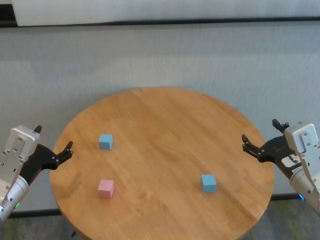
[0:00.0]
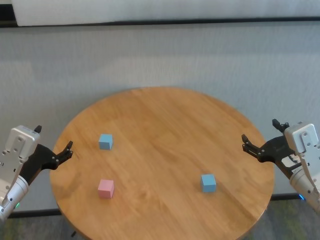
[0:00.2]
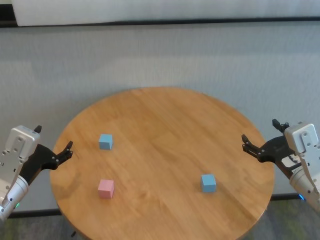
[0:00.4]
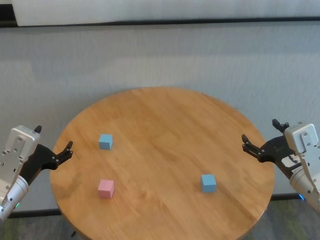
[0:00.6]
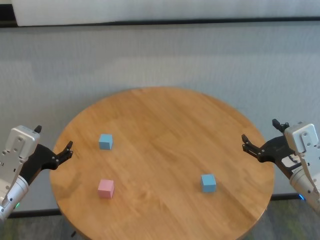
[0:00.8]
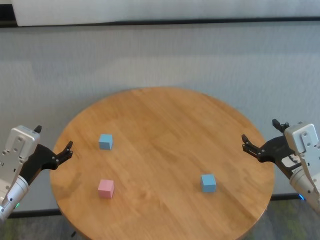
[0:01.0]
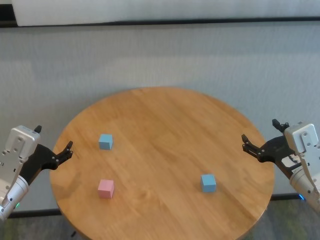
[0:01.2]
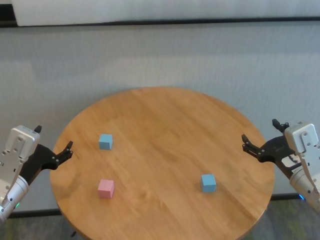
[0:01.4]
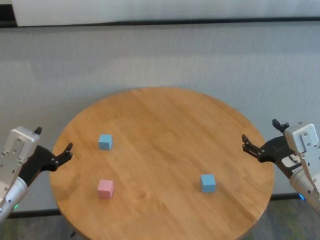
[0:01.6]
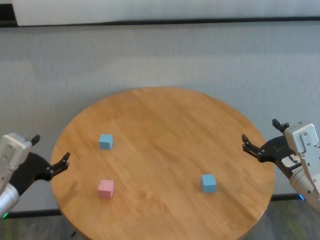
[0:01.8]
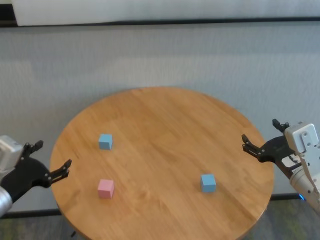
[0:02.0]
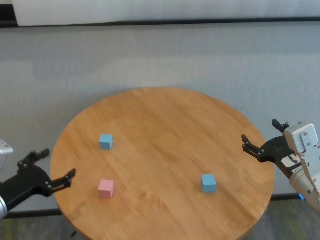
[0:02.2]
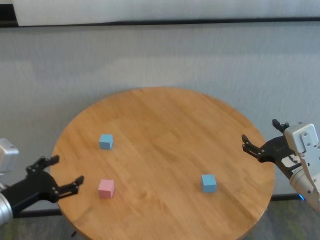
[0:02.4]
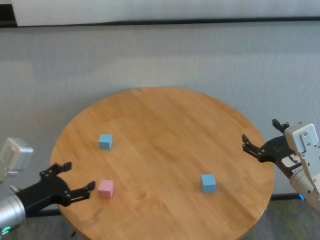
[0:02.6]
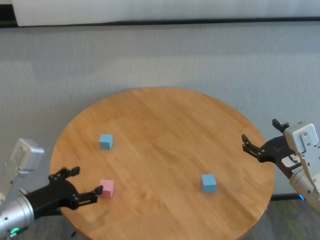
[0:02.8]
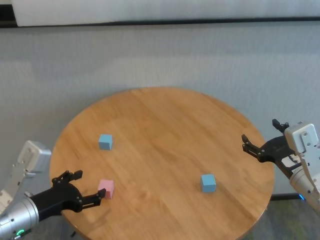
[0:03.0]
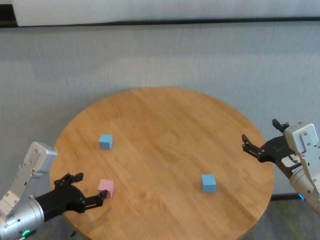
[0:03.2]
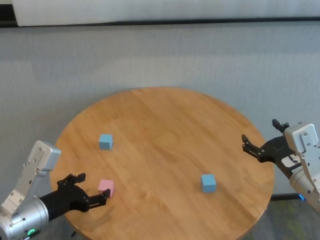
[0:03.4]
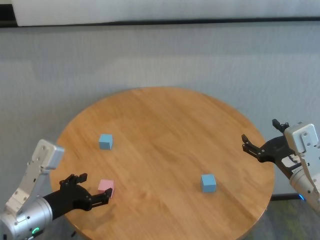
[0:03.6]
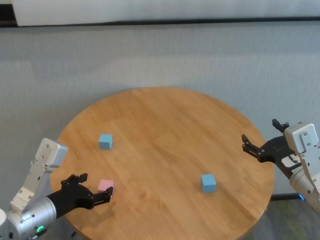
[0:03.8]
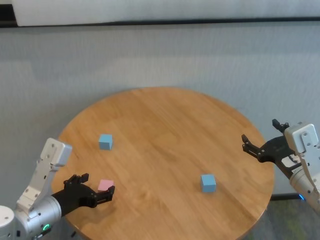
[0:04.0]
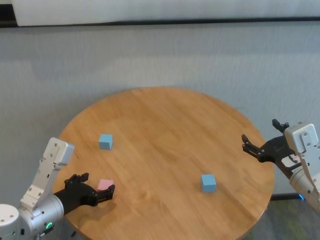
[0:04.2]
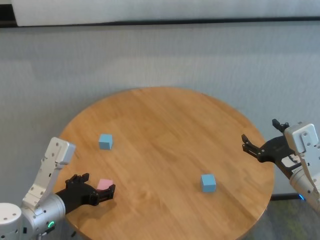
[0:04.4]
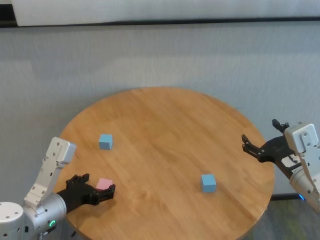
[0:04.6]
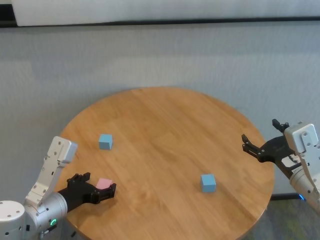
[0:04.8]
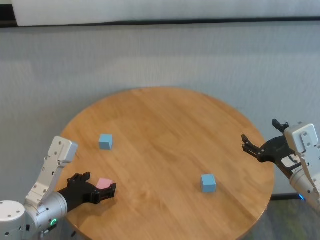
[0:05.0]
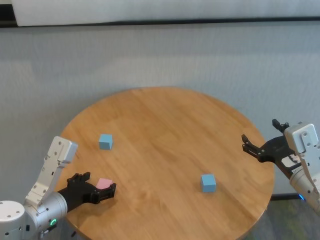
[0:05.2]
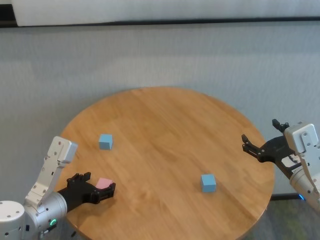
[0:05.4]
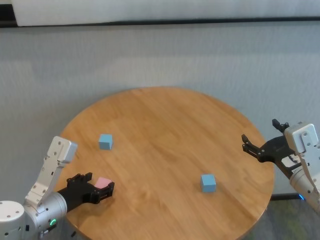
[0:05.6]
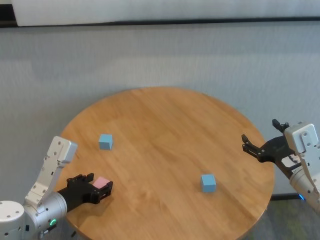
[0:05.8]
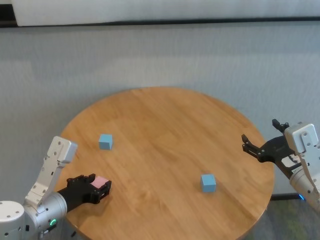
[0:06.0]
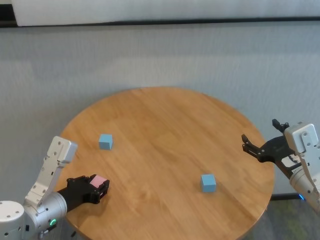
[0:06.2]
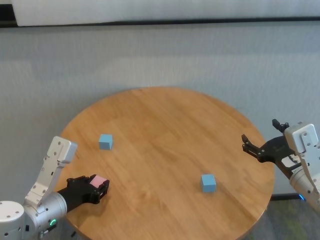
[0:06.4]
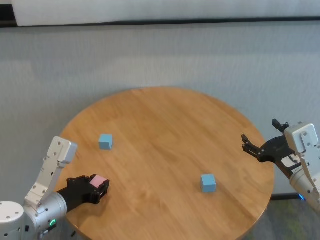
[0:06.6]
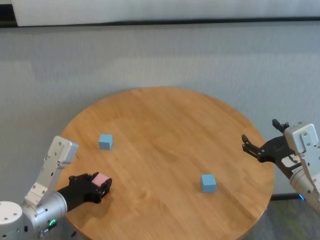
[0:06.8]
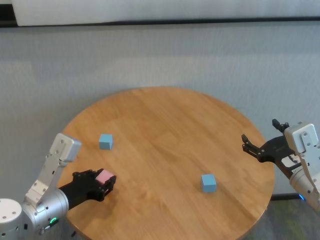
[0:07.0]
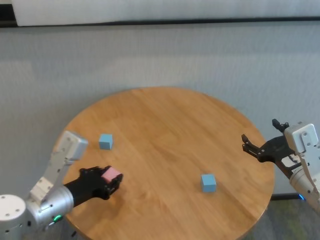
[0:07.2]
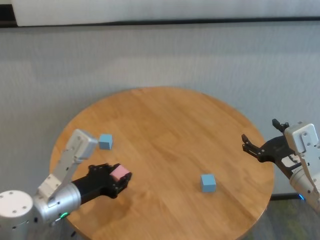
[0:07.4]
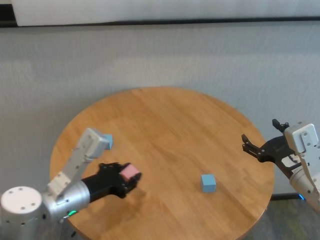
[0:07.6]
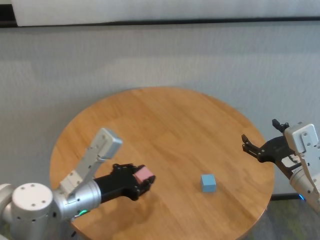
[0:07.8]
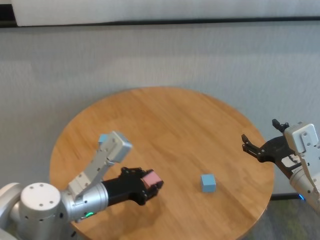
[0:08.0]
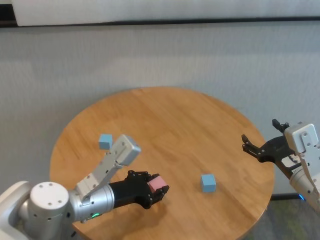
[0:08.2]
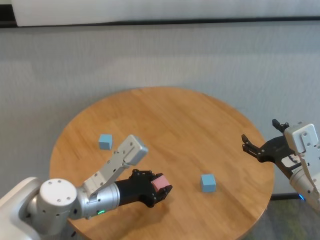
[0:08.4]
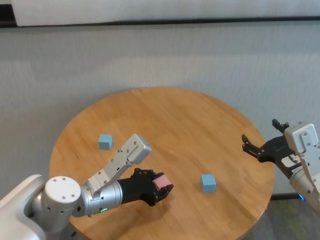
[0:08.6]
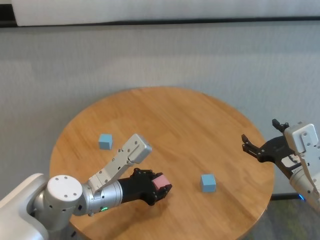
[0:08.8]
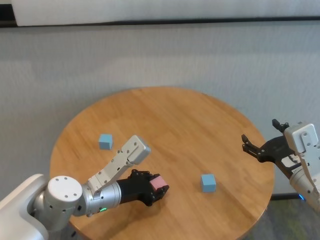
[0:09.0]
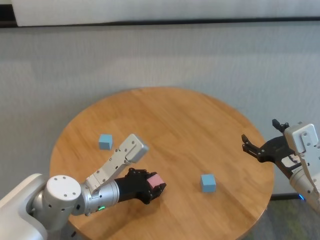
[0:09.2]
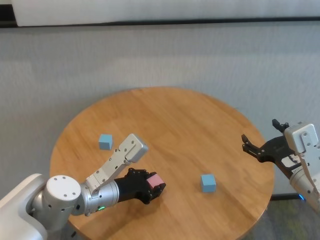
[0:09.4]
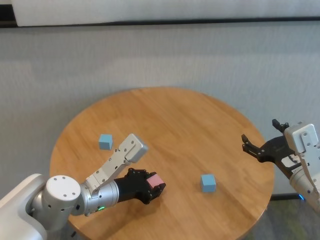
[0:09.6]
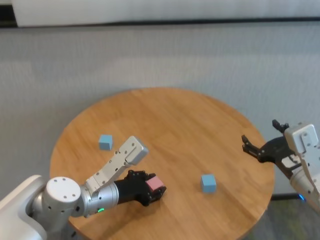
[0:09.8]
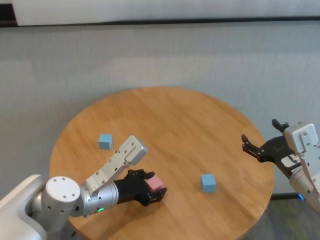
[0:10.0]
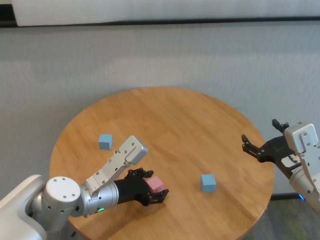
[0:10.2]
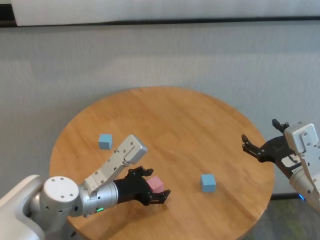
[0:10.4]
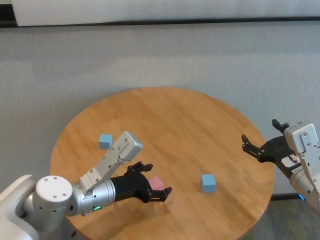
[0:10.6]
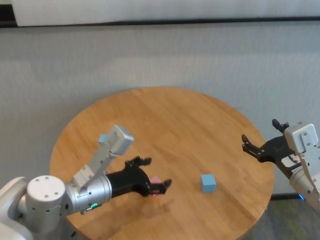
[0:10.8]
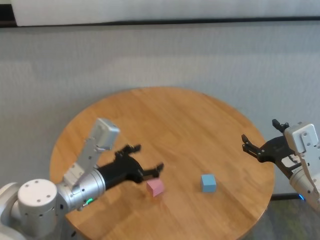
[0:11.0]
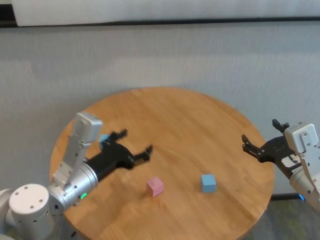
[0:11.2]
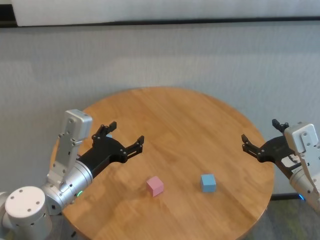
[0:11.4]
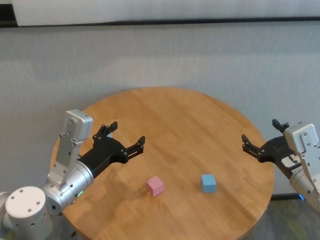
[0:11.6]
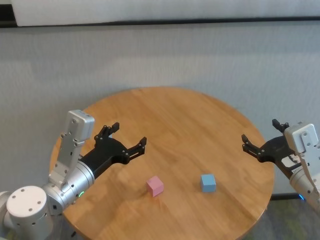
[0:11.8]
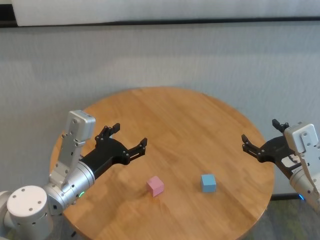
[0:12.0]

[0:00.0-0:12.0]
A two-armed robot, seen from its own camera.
Task of the whole recording: stack building blocks on the table.
Step, 0:00.0 to 0:06.2: Grasp the pink building block with left gripper.
Step, 0:06.4 to 0:10.0: Place the pink building block in the center of table with left gripper.

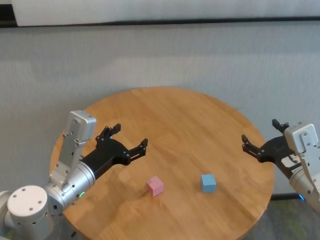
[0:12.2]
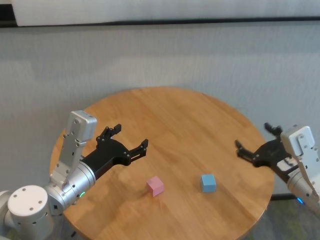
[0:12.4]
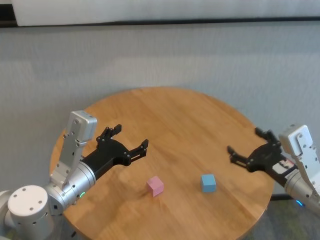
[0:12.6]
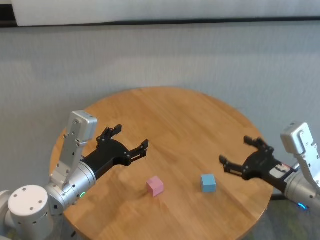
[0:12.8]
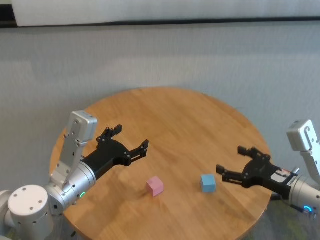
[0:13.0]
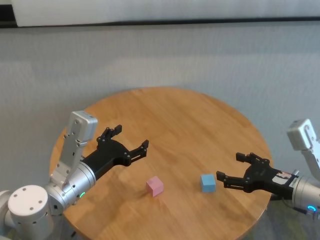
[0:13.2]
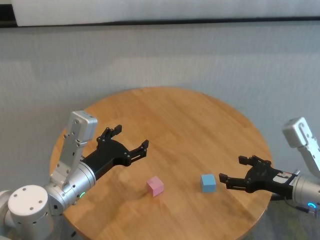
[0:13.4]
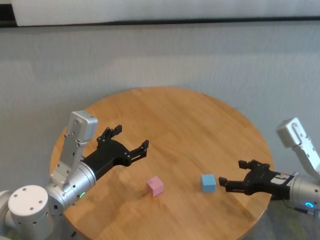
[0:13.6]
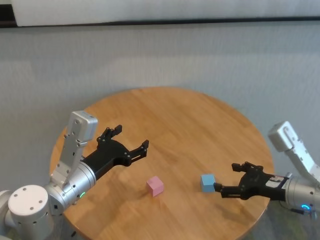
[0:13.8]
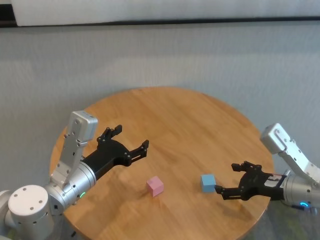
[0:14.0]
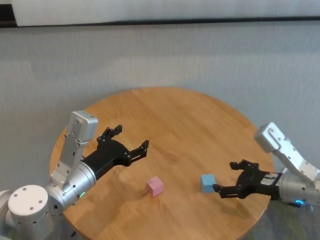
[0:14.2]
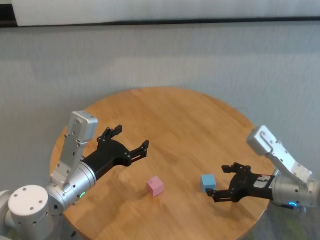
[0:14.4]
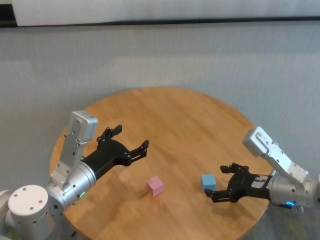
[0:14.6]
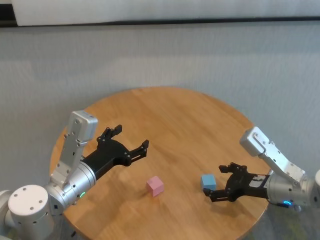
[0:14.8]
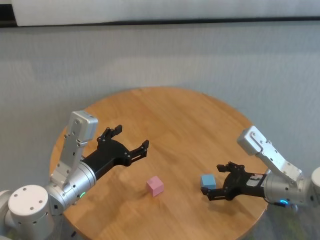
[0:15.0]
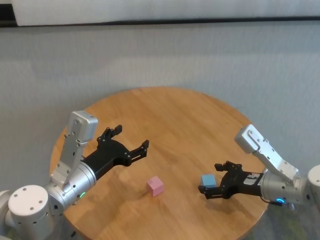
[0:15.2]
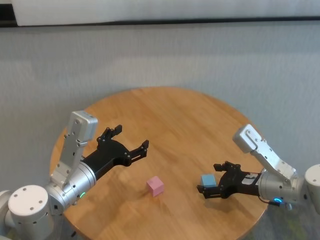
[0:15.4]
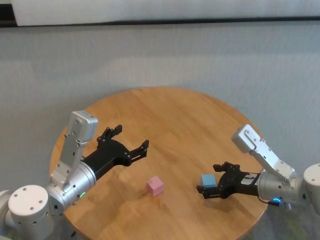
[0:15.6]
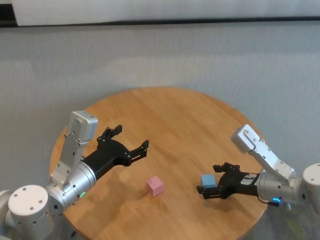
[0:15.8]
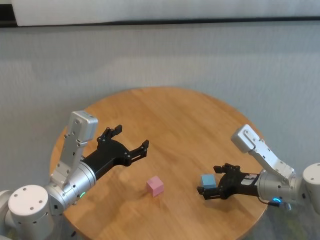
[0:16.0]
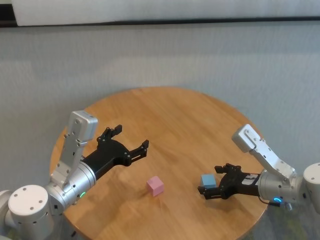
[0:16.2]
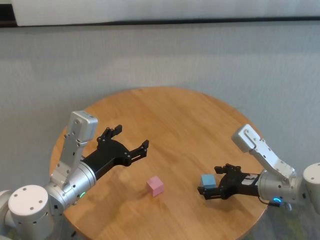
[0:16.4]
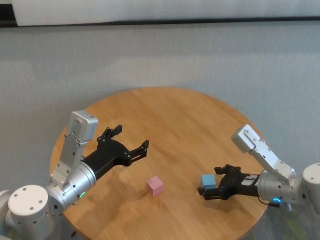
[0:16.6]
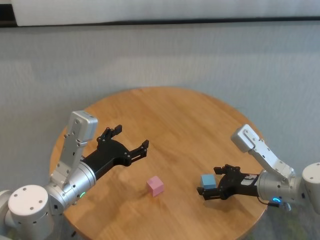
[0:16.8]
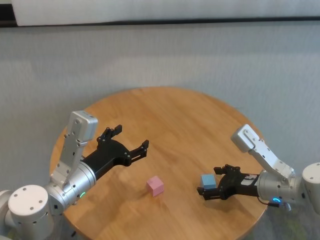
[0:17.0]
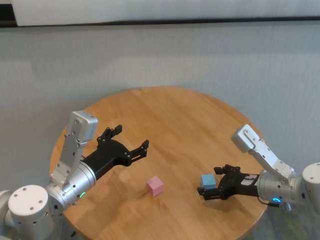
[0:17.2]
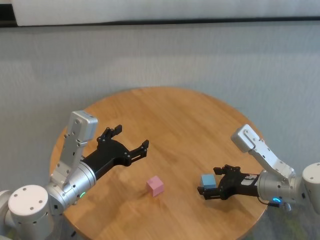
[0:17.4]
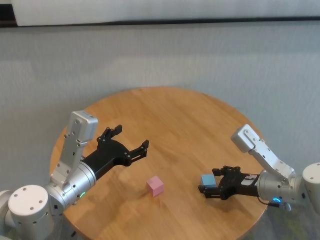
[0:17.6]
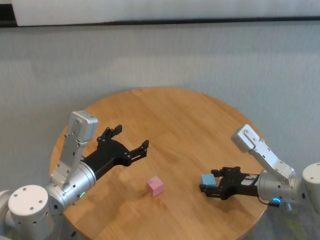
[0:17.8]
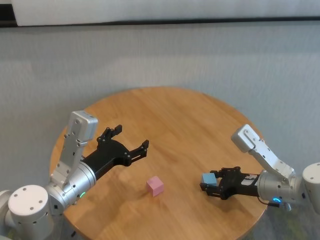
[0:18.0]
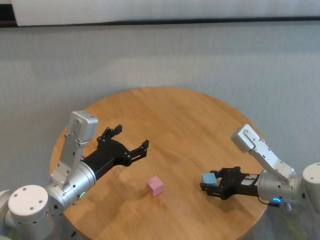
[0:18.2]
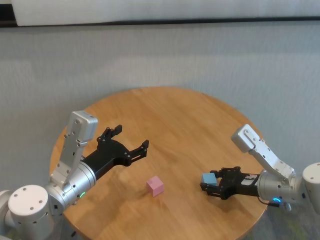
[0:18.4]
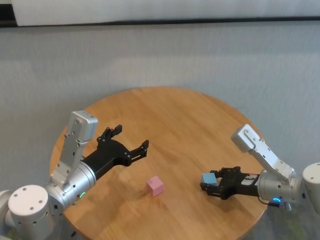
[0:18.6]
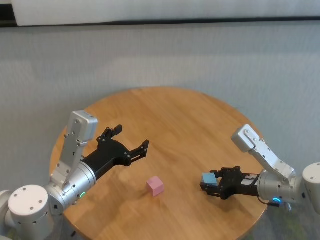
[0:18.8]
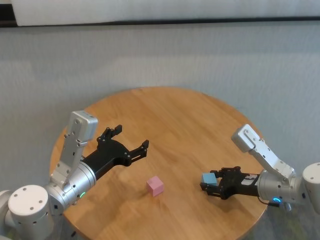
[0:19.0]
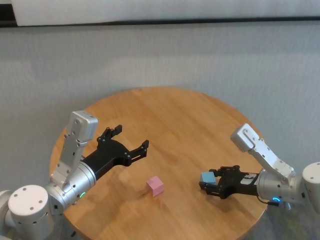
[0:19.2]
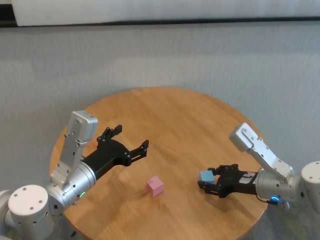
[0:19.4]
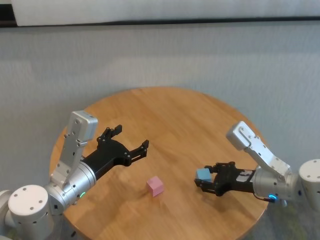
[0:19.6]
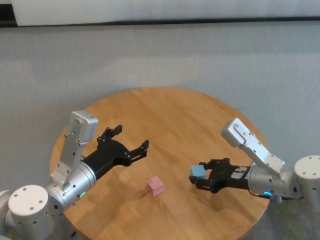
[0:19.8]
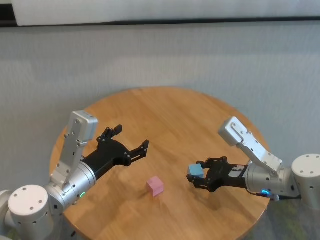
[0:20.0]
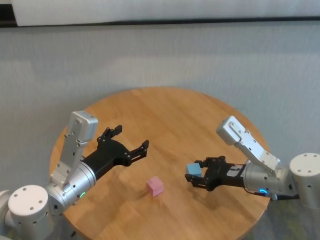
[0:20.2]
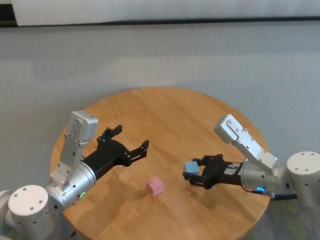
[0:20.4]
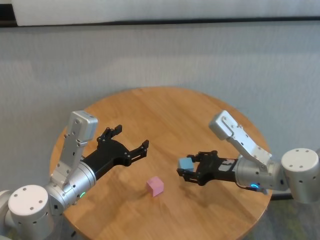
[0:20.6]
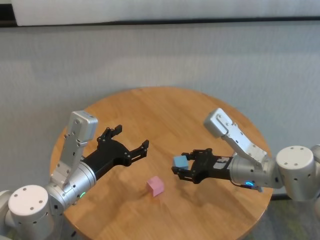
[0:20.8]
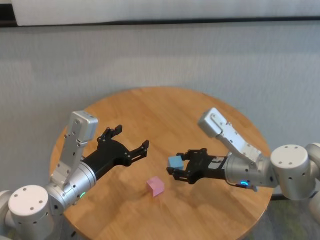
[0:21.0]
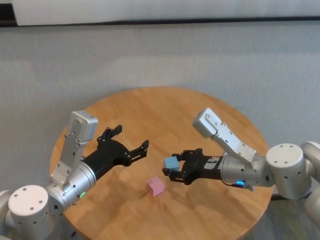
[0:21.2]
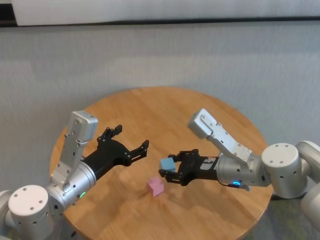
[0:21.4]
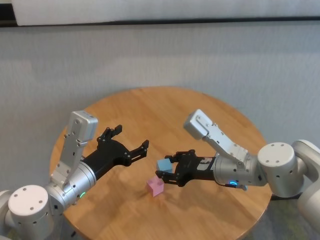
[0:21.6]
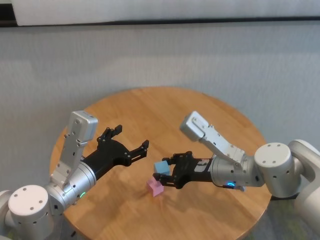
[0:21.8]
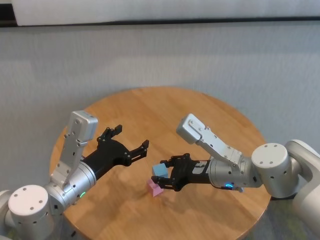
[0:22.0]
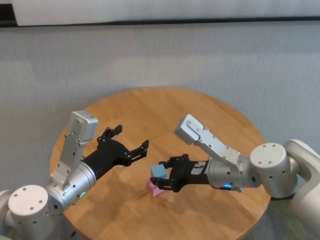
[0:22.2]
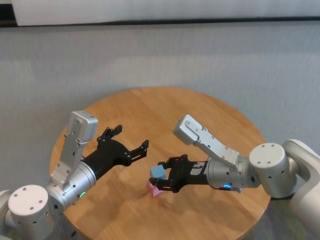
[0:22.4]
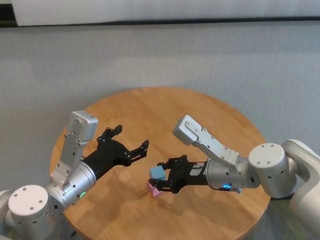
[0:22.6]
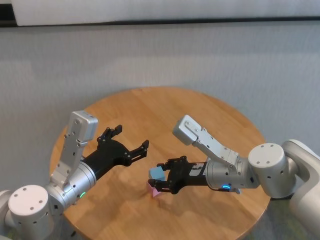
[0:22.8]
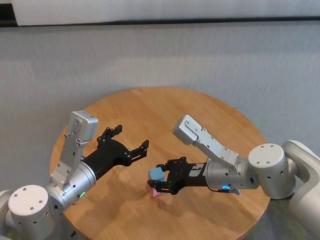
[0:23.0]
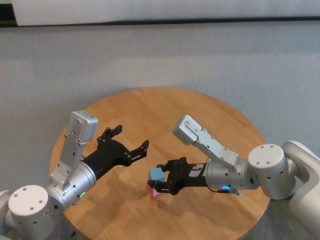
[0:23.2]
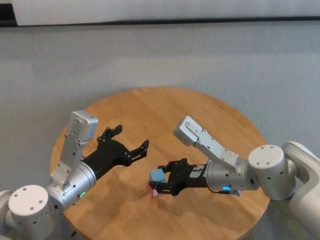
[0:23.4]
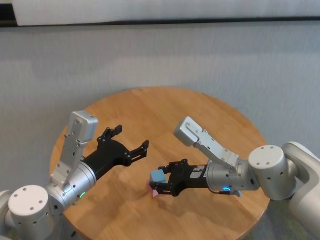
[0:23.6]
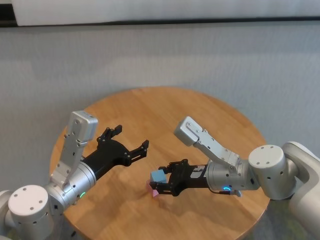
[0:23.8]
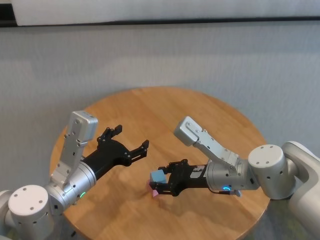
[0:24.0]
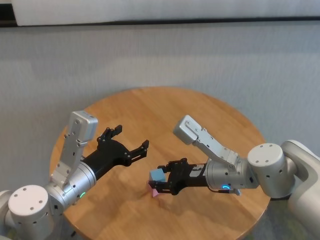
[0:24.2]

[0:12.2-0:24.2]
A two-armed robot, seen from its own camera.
Task of the whole recording: stack building blocks on the table.
Step, 0:12.2 to 0:17.8: Grasp the blue building block with right gripper.
